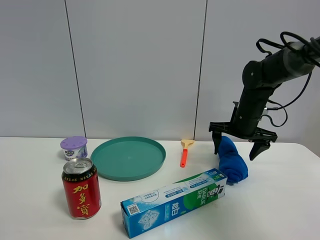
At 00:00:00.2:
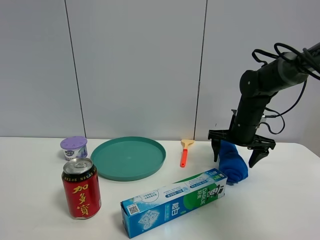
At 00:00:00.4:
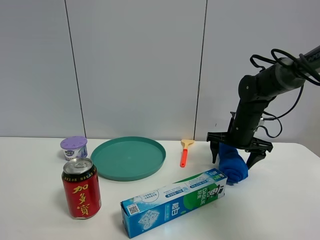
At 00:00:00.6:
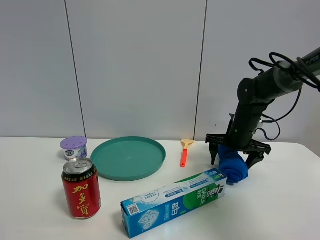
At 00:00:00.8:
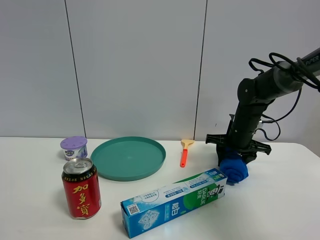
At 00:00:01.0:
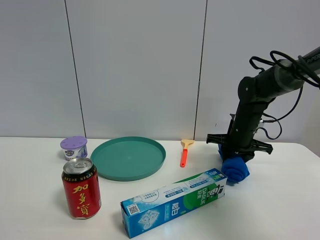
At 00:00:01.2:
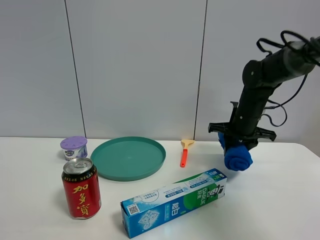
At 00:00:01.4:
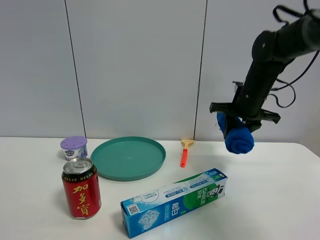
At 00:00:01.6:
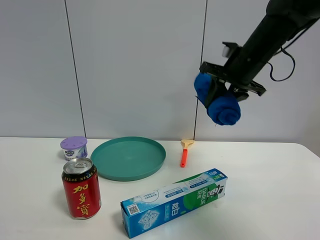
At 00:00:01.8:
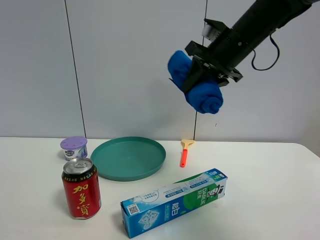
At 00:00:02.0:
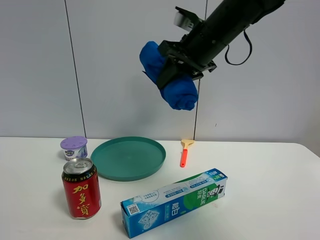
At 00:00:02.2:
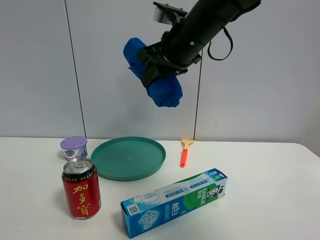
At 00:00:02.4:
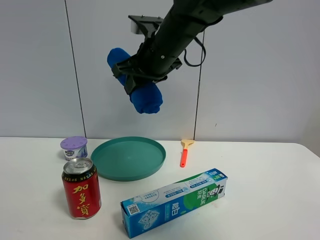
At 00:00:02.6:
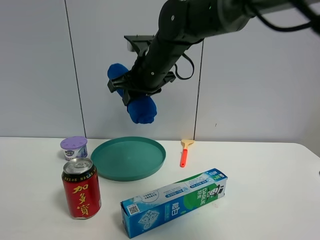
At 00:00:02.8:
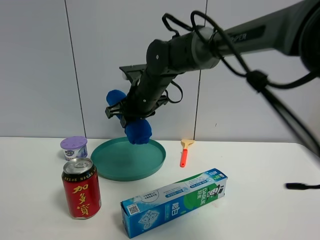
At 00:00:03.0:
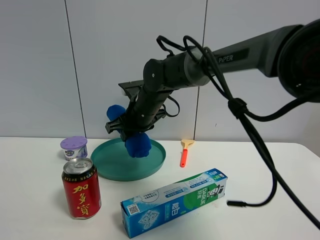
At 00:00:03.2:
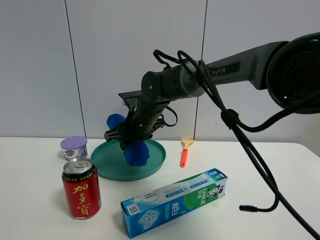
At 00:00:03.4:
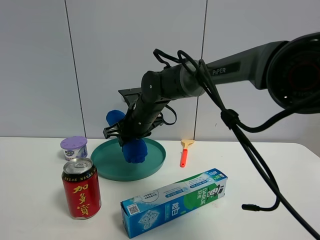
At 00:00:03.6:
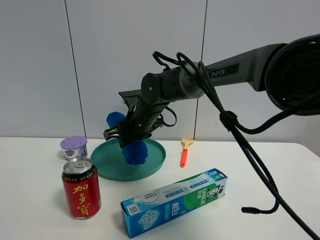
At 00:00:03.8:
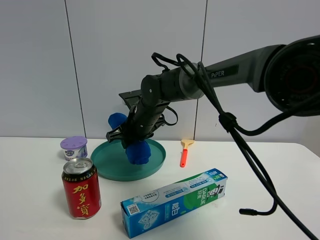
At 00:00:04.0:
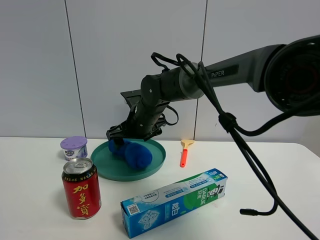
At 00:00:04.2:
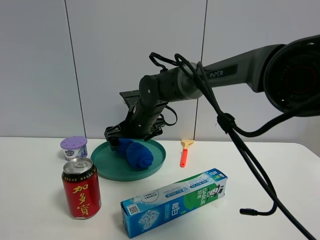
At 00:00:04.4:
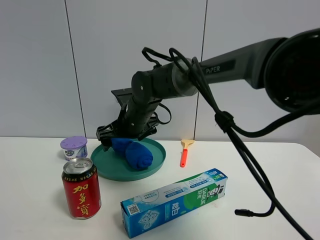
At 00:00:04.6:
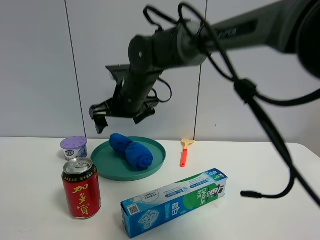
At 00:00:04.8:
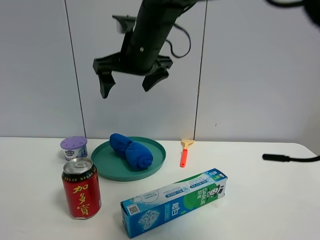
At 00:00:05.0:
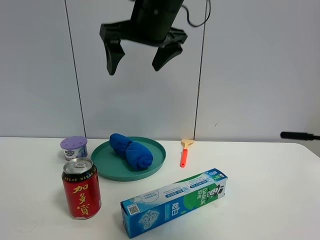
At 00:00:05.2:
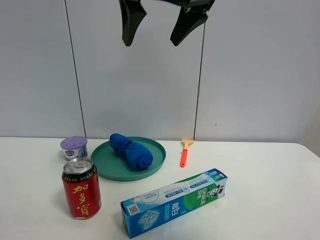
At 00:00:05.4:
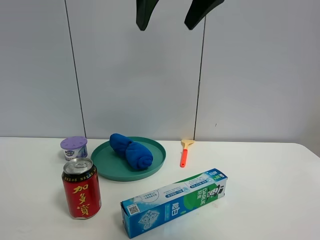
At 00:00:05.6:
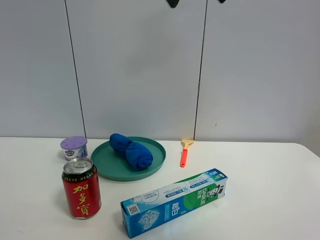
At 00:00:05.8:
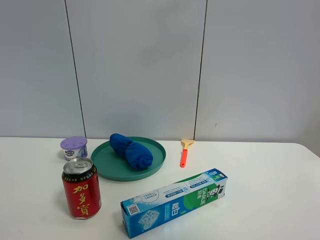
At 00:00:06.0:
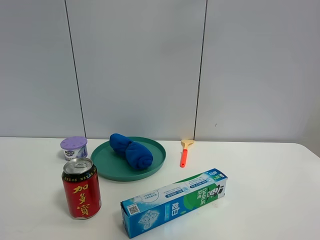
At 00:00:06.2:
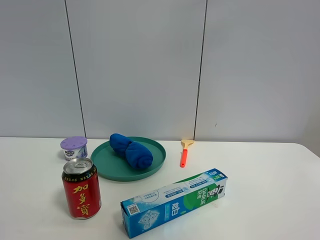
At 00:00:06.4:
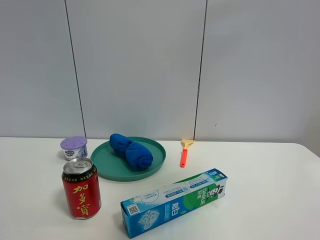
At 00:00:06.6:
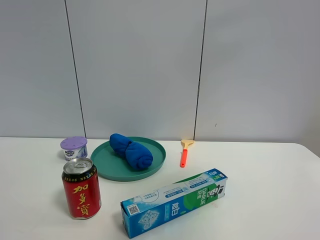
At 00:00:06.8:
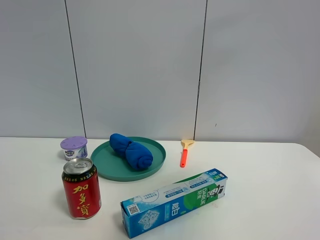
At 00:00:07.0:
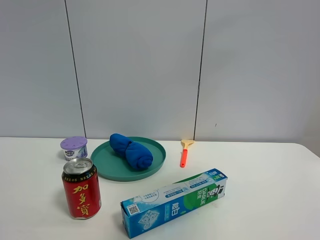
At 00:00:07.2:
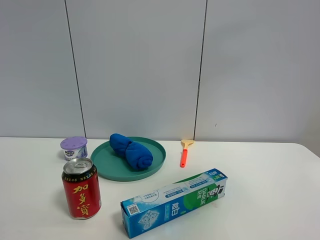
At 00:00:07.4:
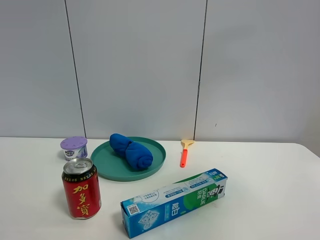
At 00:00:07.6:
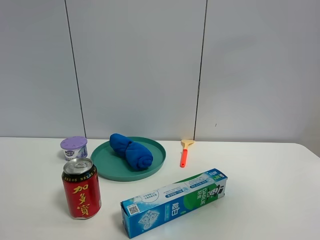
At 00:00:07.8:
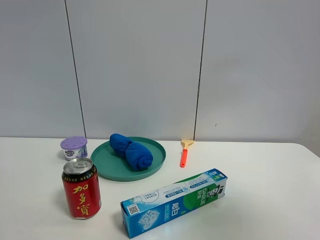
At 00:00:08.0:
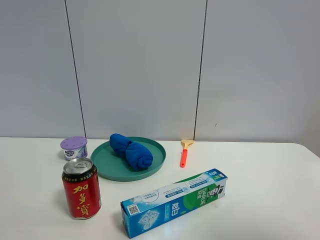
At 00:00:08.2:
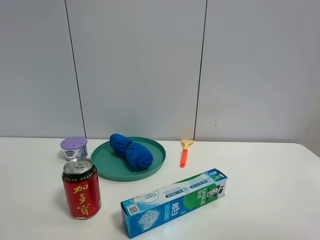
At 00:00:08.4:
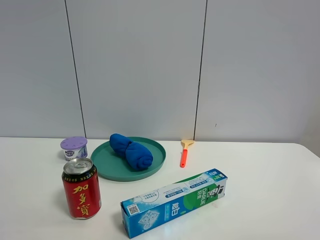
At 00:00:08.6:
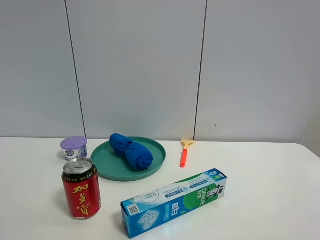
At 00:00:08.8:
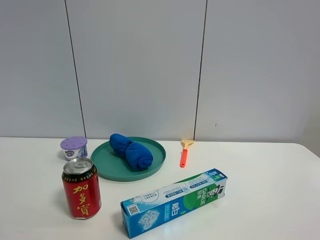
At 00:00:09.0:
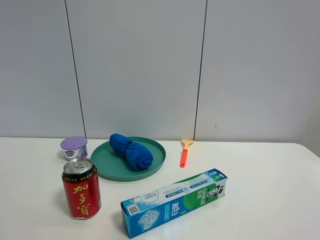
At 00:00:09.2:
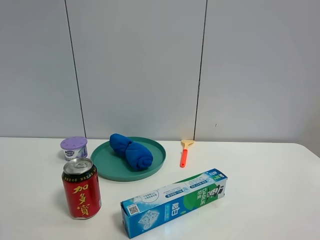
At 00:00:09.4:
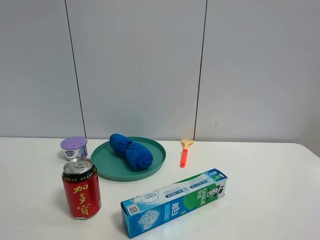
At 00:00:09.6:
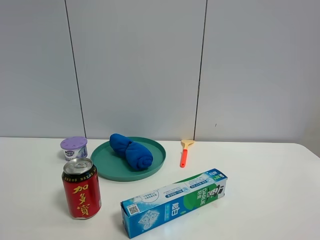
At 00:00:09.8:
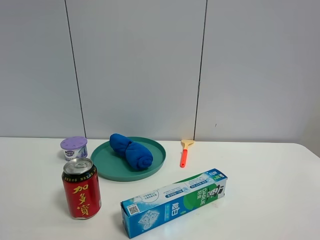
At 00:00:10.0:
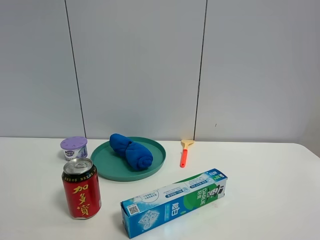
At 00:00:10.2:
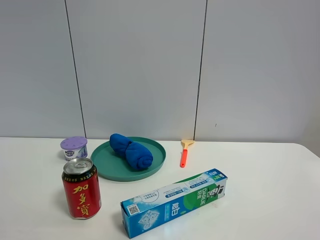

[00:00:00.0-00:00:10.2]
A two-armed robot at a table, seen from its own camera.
Task of the whole recording: the gripper move the object.
Step, 00:00:01.2 to 00:00:04.4: Place the blue towel into the green plate with the right gripper.
00:00:00.0 to 00:00:01.4: The right gripper shifts approximately 5 cm upward, and closes.
00:00:01.4 to 00:00:03.0: The right gripper moves to the left, some 25 cm.
00:00:03.0 to 00:00:04.4: The right gripper opens its fingers.
00:00:04.4 to 00:00:05.8: The right gripper moves upward, to the right and backward, some 40 cm.
00:00:05.8 to 00:00:07.2: The right gripper is displaced to the right and backward by some 20 cm.
00:00:07.2 to 00:00:08.8: The right gripper moves downward and backward, about 25 cm.
00:00:08.8 to 00:00:10.2: The two grippers keep their place.

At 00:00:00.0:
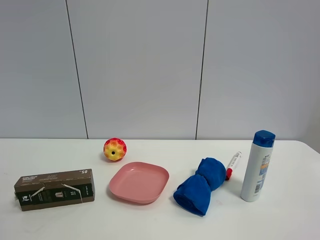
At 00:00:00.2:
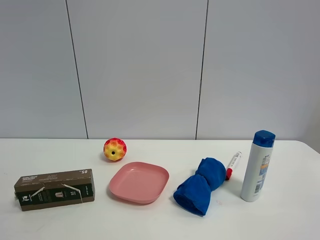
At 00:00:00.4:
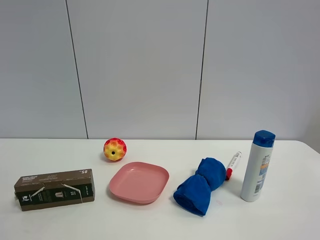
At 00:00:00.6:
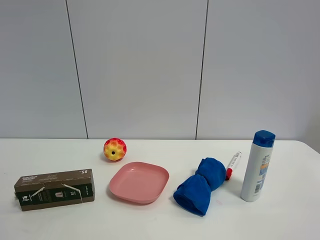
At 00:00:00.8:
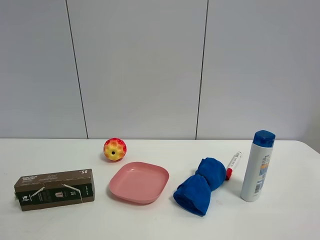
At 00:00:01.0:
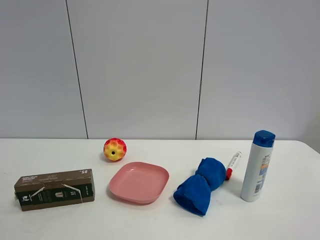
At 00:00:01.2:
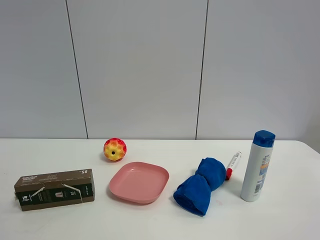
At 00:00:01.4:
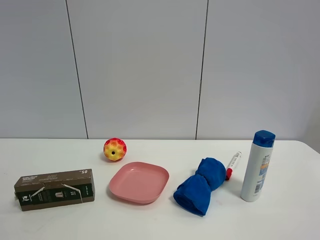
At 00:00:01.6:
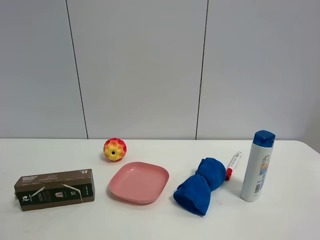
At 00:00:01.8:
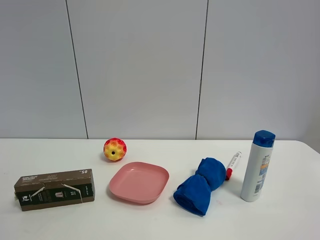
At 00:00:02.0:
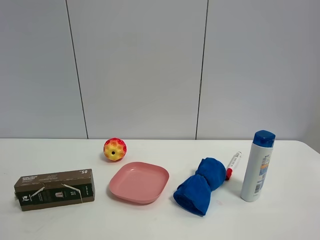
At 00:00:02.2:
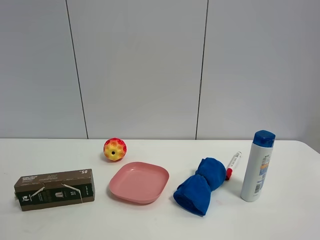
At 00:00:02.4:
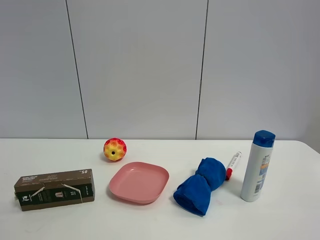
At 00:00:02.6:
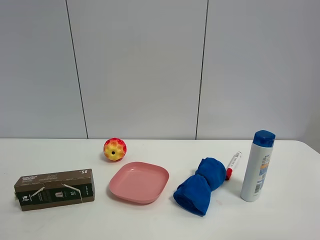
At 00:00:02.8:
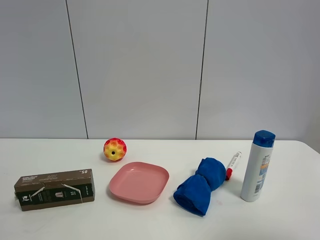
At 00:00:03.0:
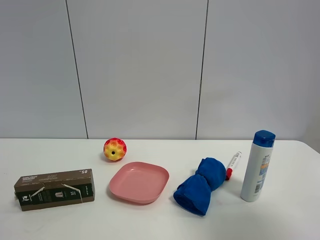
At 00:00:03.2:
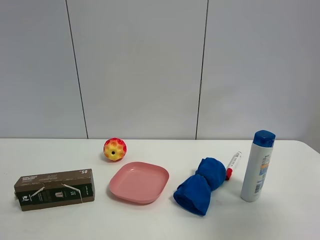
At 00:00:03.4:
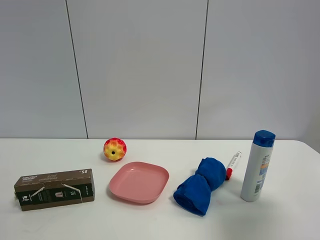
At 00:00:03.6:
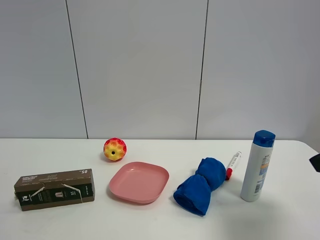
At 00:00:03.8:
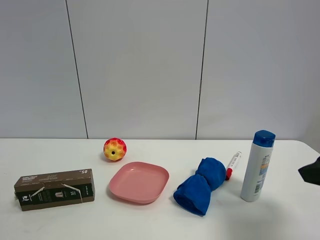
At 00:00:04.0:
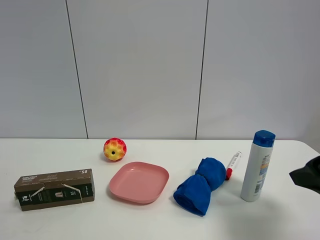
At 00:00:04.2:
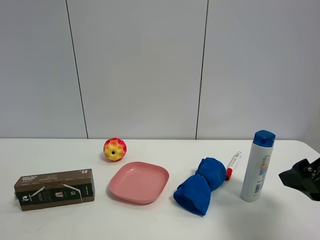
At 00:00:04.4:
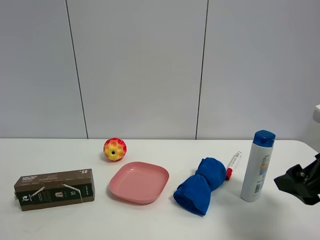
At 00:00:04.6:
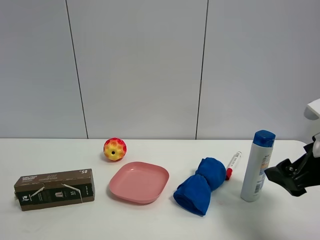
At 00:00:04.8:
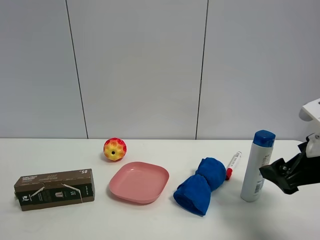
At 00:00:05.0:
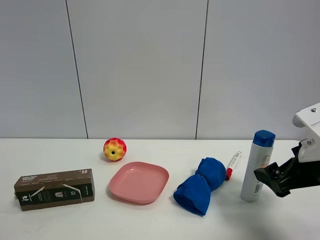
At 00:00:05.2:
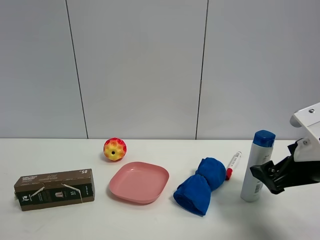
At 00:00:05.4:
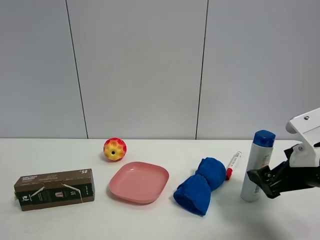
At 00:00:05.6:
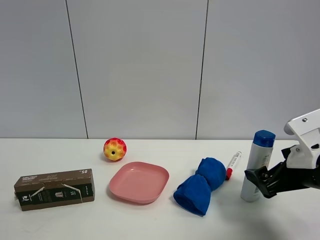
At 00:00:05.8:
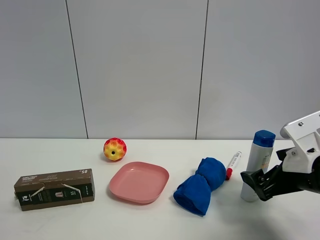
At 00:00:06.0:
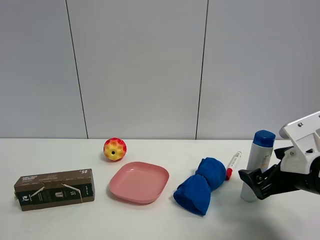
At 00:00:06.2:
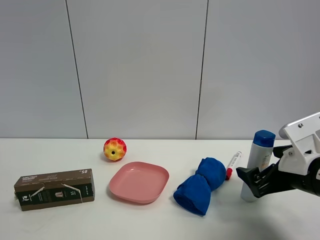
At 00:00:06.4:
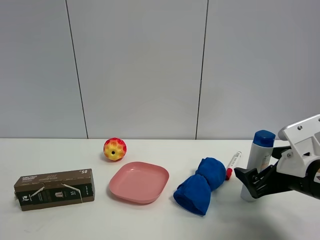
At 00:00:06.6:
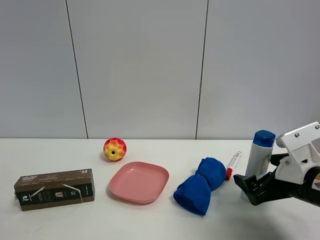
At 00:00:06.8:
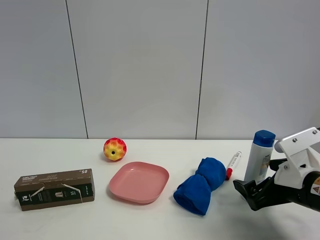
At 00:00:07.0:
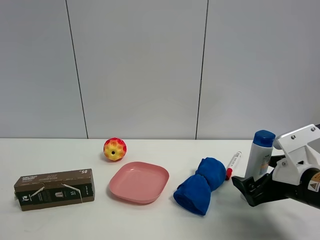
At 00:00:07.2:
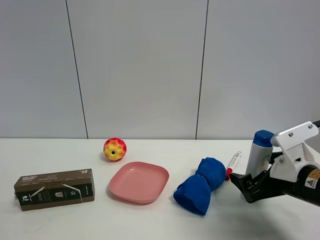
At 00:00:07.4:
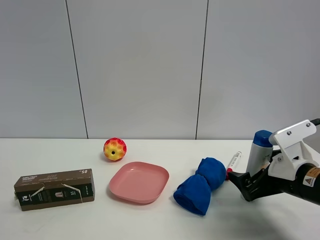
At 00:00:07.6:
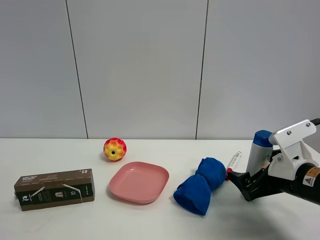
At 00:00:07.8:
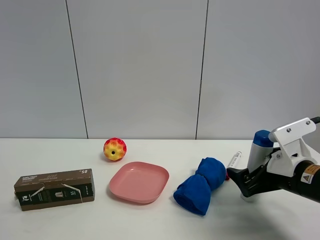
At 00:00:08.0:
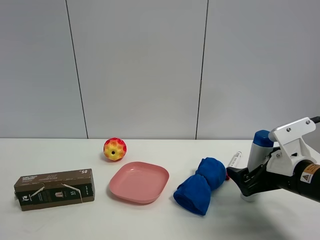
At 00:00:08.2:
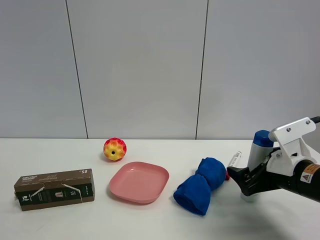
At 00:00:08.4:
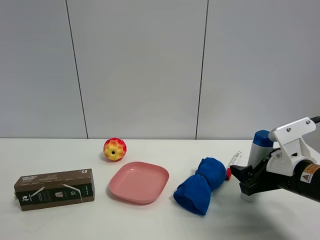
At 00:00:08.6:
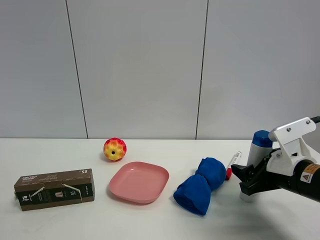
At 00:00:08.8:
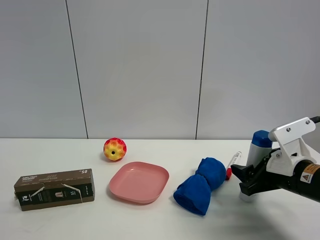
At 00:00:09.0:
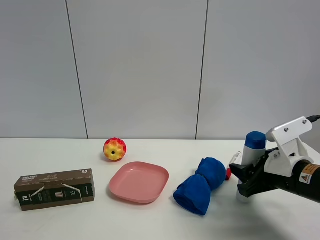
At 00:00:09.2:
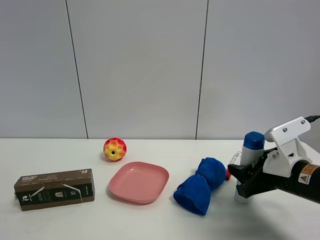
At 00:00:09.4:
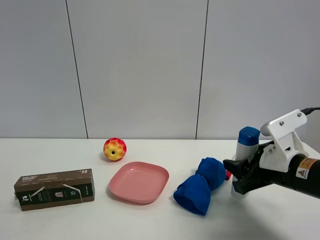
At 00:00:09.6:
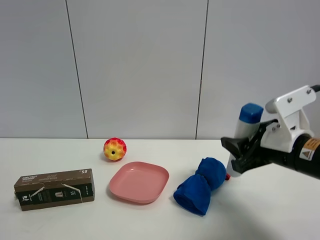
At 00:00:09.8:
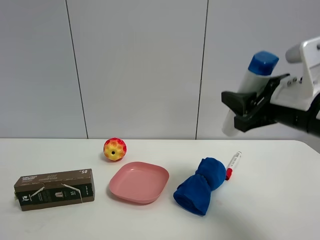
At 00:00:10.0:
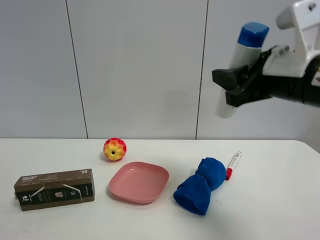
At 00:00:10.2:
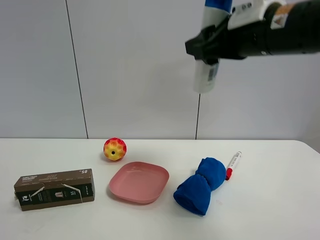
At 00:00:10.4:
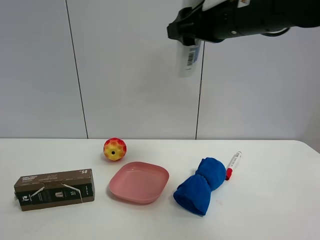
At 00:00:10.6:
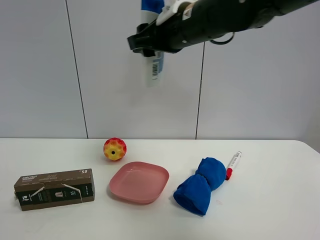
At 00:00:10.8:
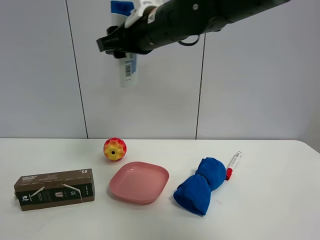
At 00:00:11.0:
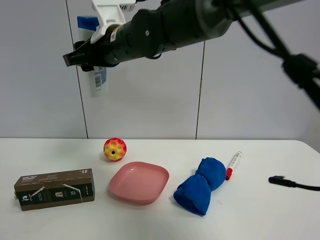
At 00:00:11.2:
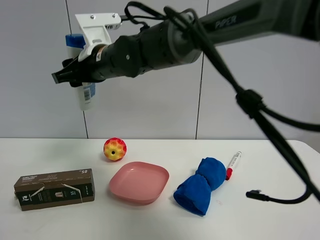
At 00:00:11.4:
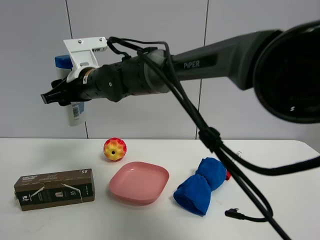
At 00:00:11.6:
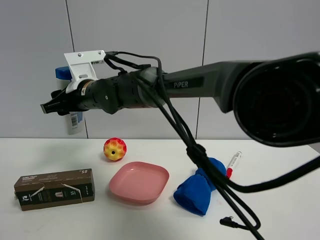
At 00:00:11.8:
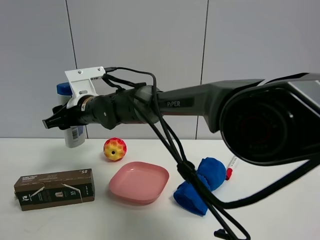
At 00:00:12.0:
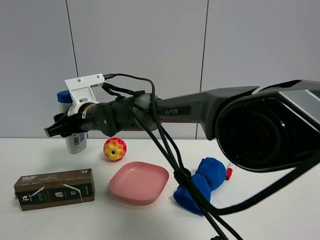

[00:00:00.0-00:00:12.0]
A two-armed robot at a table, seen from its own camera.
Task of the whole recording: the gripper move the object.
Step, 00:00:00.0 to 00:00:08.8: Grasp the shampoo with the right gripper.
00:00:00.0 to 00:00:01.6: Both grippers stay about where they are.
00:00:01.6 to 00:00:03.0: The right gripper moves forward, about 15 cm.
00:00:03.0 to 00:00:04.4: The right gripper moves downward and forward, some 15 cm.
00:00:04.4 to 00:00:06.0: The right gripper shifts some 5 cm downward.
00:00:06.0 to 00:00:07.6: There are only small adjustments of the grippers.
00:00:07.6 to 00:00:09.0: The right gripper closes.
00:00:09.0 to 00:00:10.4: The right gripper goes some 30 cm upward and to the left.
00:00:10.4 to 00:00:12.0: The right gripper is displaced to the left and downward by roughly 30 cm.
